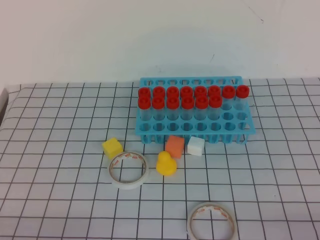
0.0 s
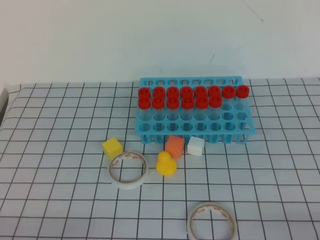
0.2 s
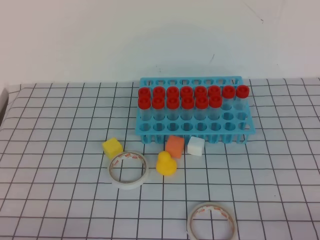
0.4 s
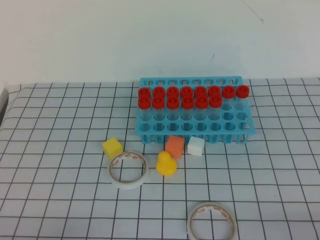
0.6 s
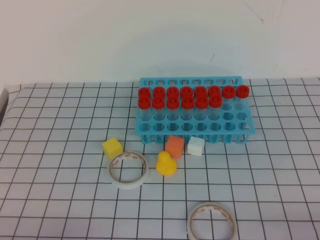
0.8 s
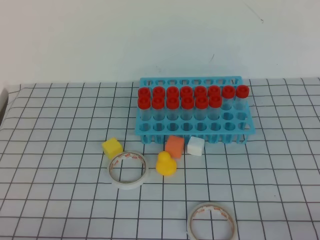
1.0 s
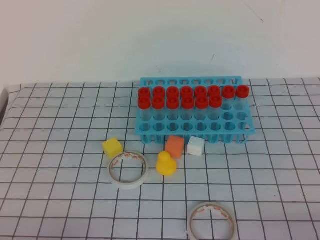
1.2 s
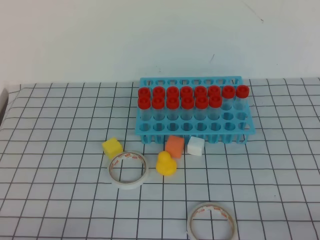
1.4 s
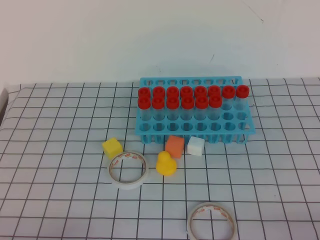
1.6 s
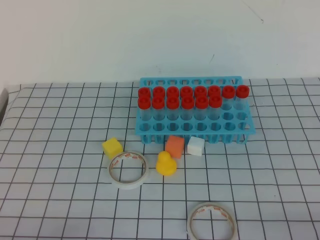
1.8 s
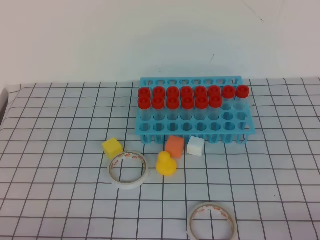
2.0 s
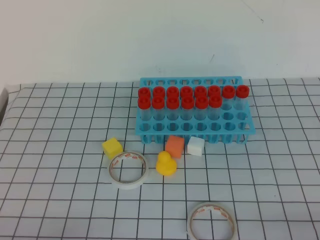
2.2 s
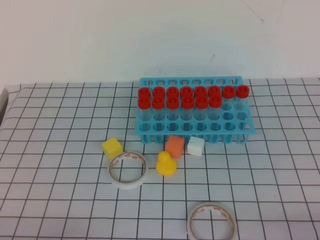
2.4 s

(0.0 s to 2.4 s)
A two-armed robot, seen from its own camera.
1.2 s - 2.4 s: The two grippers keep their place.
